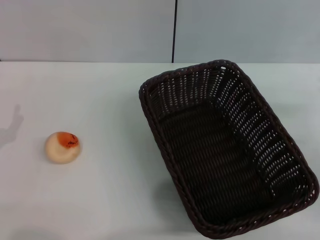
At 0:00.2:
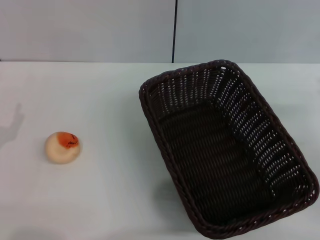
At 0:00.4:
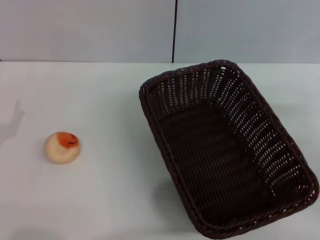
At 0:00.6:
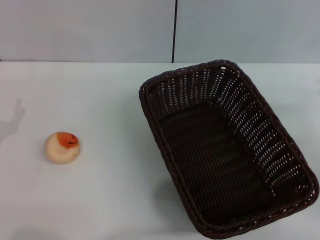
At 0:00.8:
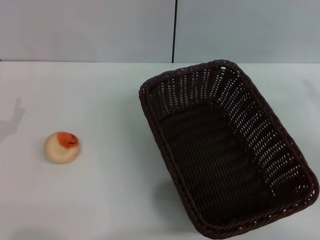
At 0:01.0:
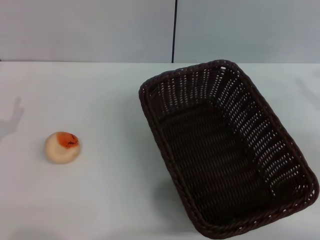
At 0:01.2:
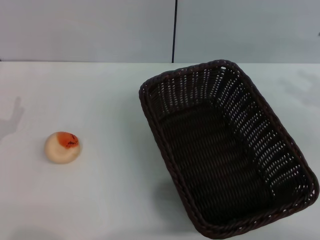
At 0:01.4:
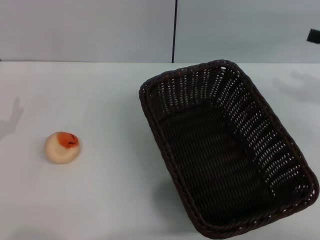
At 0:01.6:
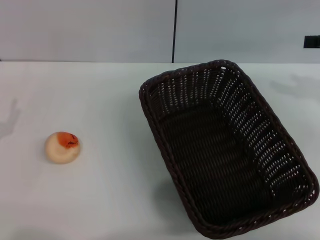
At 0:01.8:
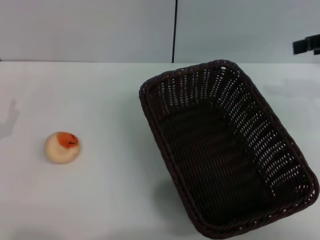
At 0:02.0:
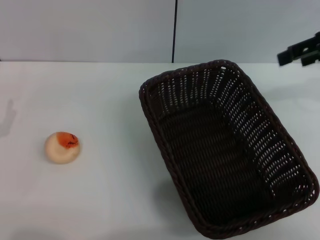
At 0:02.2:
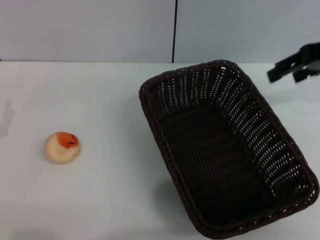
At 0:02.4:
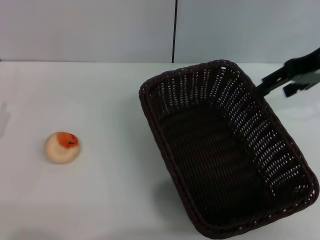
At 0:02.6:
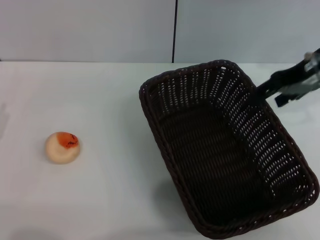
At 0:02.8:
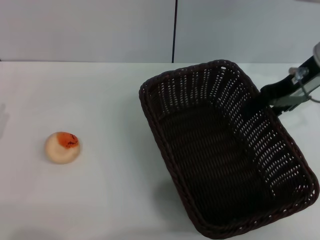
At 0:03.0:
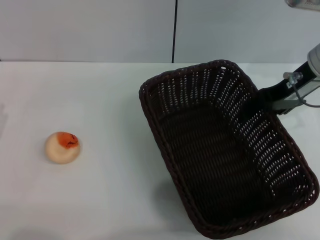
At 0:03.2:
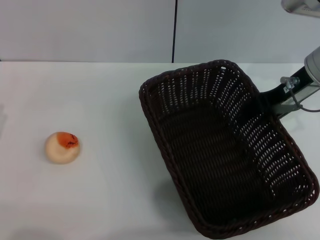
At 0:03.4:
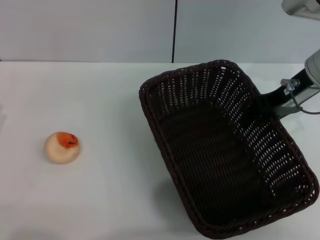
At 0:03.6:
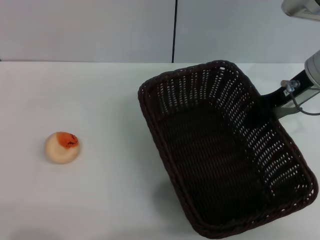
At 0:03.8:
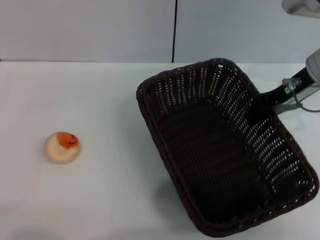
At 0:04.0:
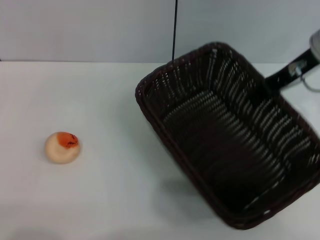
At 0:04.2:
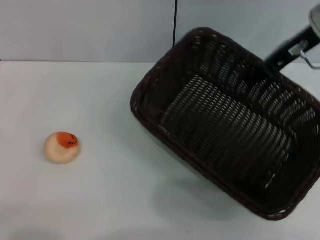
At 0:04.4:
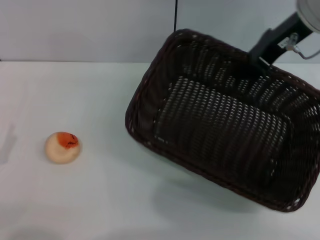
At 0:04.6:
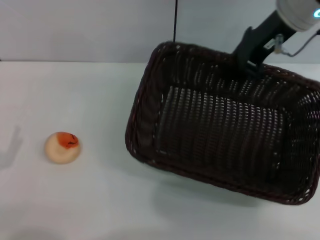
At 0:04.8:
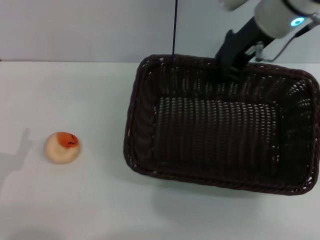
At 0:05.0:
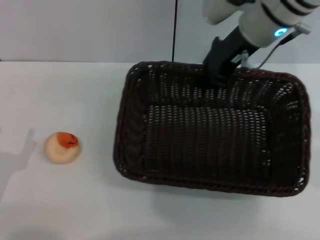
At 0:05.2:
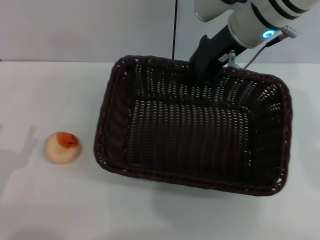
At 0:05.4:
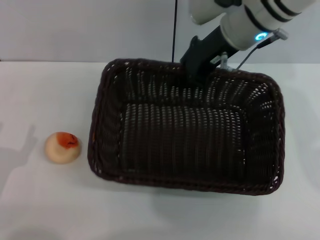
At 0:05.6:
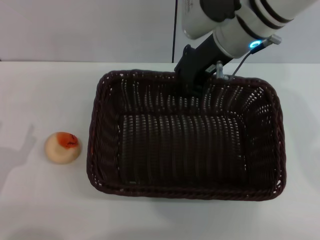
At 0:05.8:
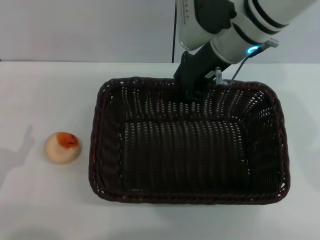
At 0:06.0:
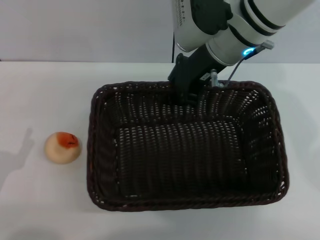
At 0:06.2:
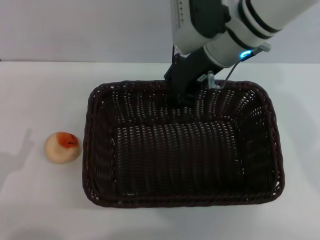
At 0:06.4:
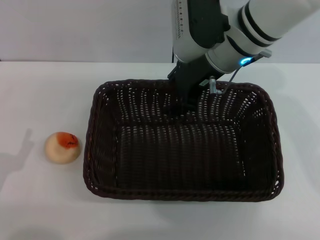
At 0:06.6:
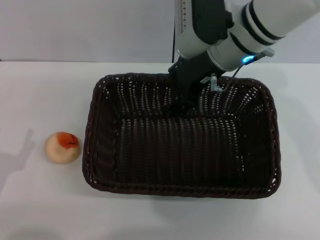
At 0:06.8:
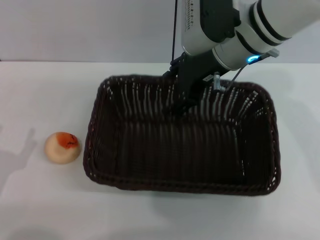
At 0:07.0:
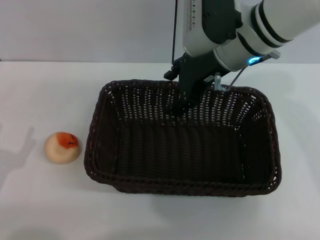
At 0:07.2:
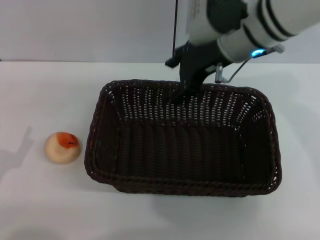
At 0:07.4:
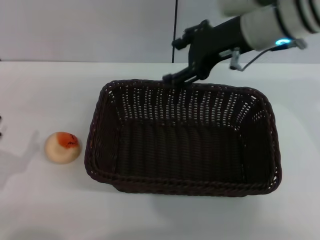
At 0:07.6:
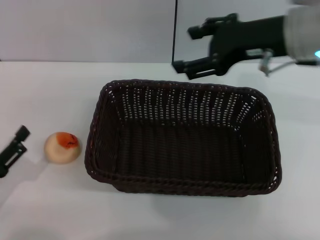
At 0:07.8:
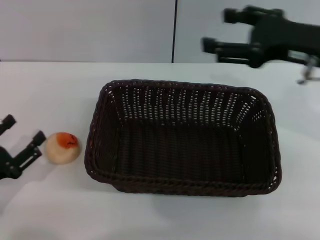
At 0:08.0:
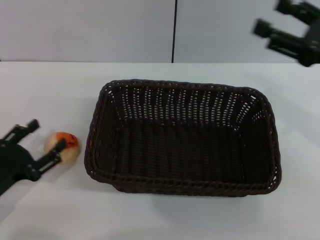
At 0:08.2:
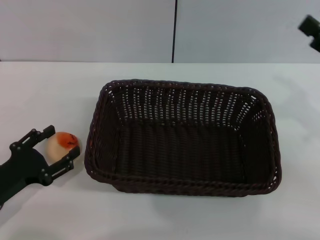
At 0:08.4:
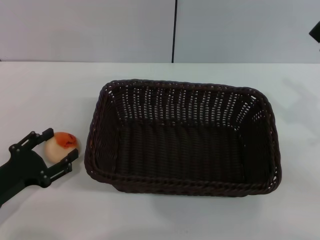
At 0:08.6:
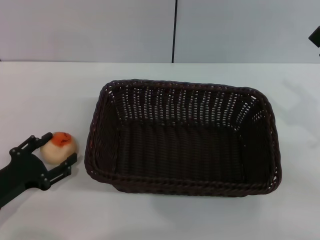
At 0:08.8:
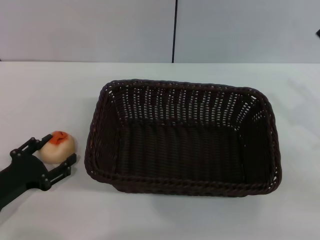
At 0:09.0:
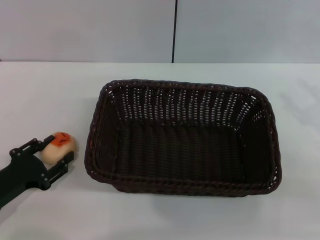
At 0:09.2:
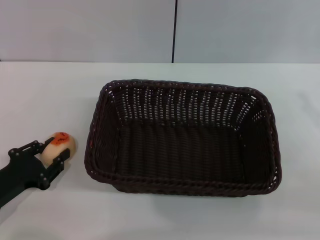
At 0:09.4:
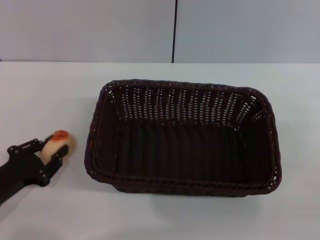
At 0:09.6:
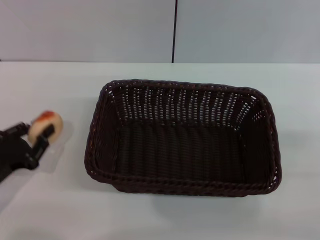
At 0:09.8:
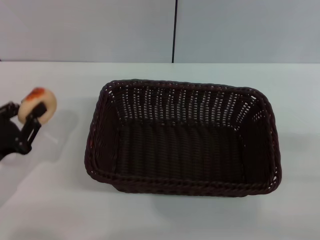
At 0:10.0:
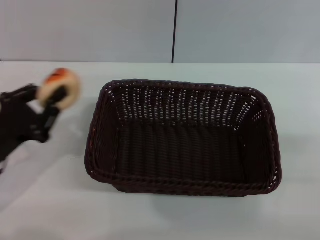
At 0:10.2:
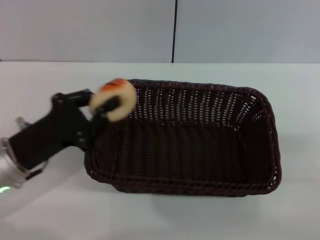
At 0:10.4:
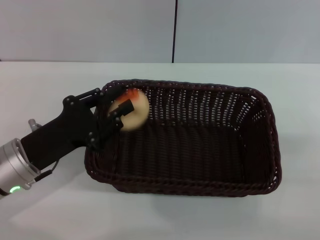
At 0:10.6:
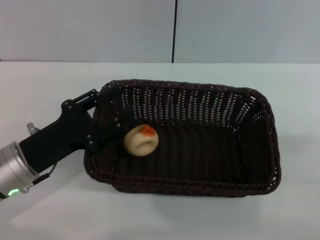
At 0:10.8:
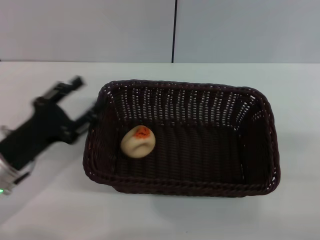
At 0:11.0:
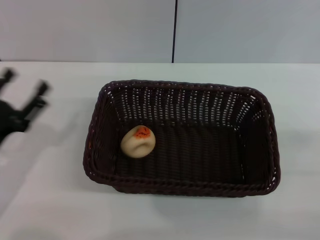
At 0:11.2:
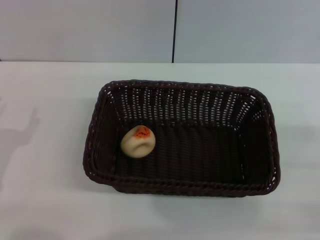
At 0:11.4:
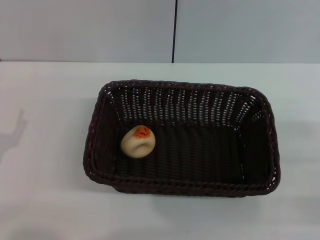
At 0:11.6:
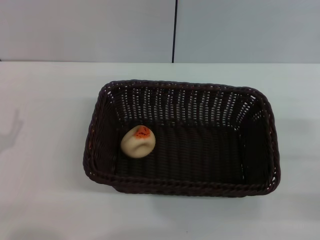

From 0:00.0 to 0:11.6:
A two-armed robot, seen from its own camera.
Step, from 0:00.0 to 0:07.4: Move the basket to the center of view with the right gripper.
Step, from 0:07.6 to 0:09.6: Pick up the egg yolk pastry with the left gripper.
Step, from 0:09.8 to 0:10.6: Place the egg yolk pastry into the basket with the left gripper.
From 0:00.0 to 0:01.4: The right gripper shifts roughly 15 cm upward and forward.
From 0:01.4 to 0:02.8: The right gripper is displaced to the left and forward by approximately 15 cm.
From 0:02.8 to 0:04.4: The right gripper ends up roughly 5 cm from where it was, and closes.
From 0:04.4 to 0:05.8: The right gripper heads to the left, covering some 10 cm.
From 0:05.8 to 0:07.2: The right gripper opens its fingers.
From 0:07.2 to 0:08.8: The right gripper moves to the right, backward and downward, approximately 25 cm, while the left gripper ends up some 5 cm from where it was.
From 0:08.8 to 0:10.2: The left gripper goes roughly 10 cm upward and to the right, and closes its fingers, while the right gripper shifts approximately 5 cm backward.
From 0:10.2 to 0:11.6: The left gripper shifts about 10 cm to the left and backward, and opens.
